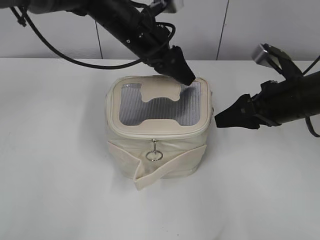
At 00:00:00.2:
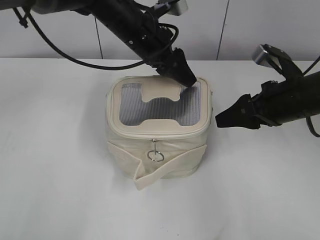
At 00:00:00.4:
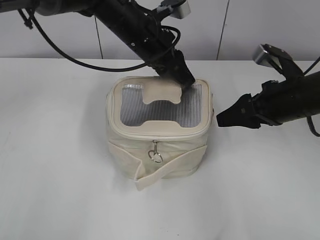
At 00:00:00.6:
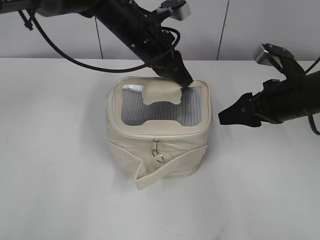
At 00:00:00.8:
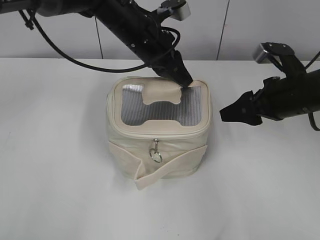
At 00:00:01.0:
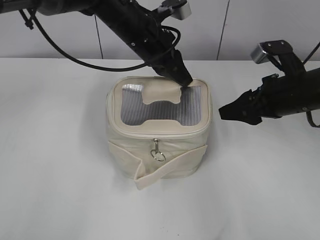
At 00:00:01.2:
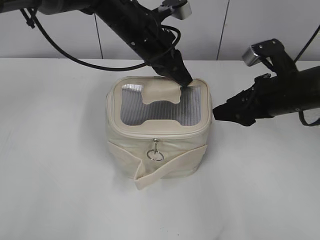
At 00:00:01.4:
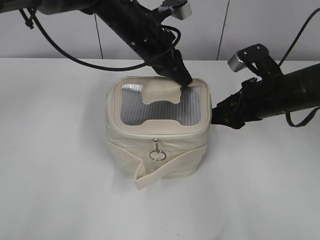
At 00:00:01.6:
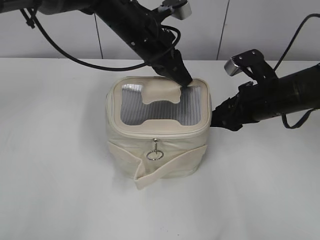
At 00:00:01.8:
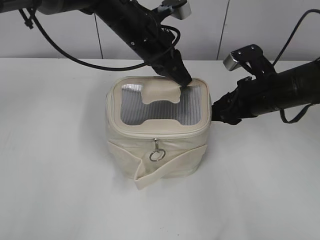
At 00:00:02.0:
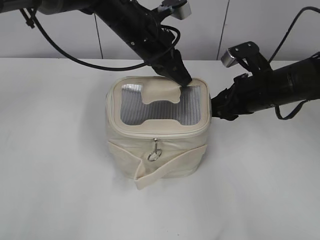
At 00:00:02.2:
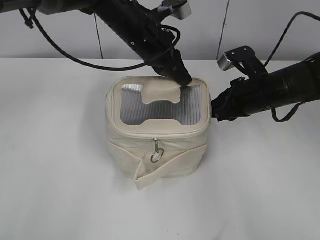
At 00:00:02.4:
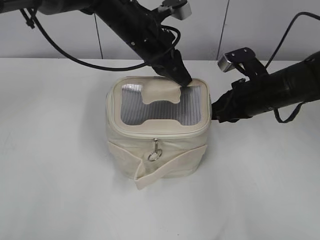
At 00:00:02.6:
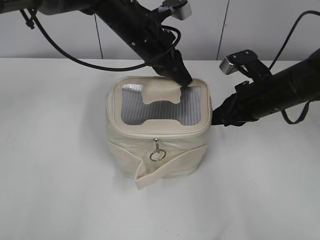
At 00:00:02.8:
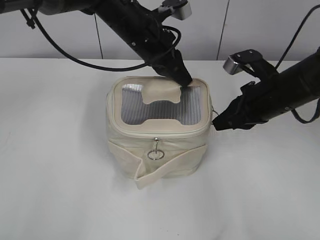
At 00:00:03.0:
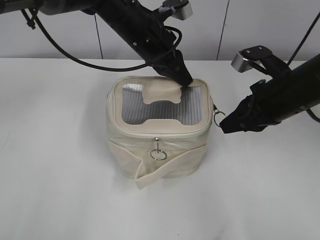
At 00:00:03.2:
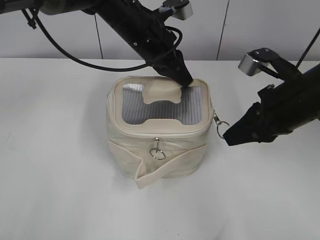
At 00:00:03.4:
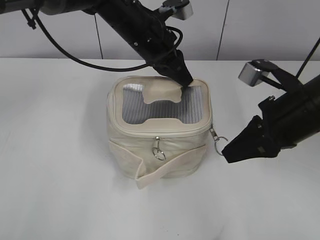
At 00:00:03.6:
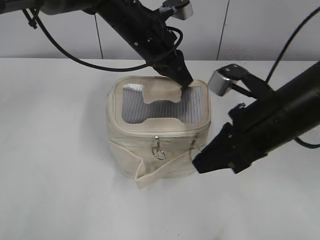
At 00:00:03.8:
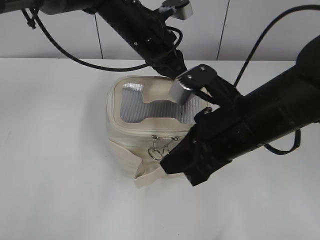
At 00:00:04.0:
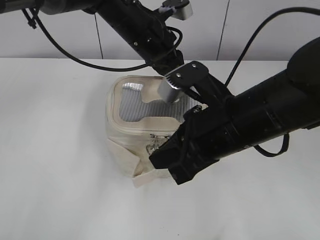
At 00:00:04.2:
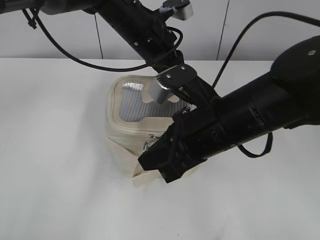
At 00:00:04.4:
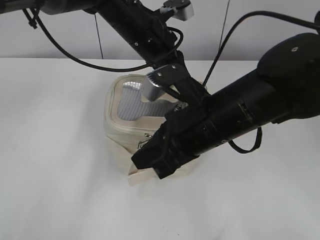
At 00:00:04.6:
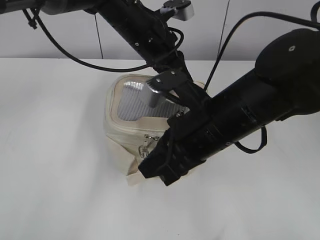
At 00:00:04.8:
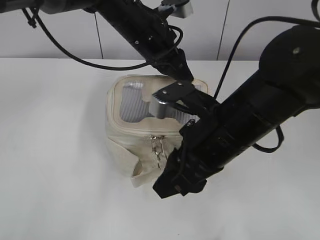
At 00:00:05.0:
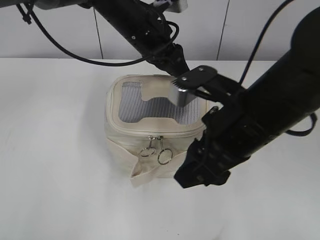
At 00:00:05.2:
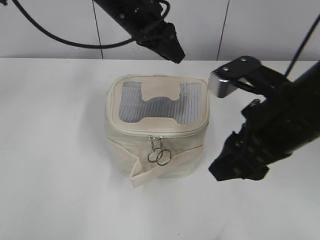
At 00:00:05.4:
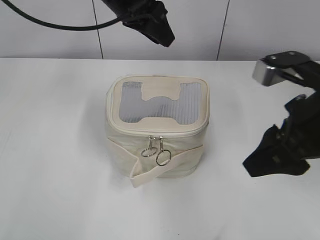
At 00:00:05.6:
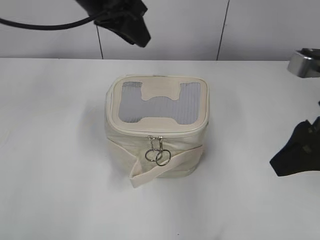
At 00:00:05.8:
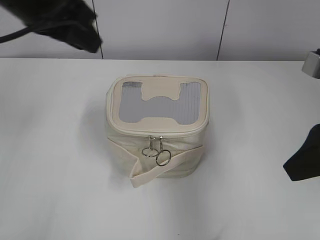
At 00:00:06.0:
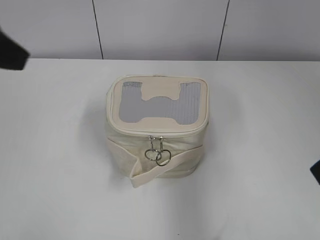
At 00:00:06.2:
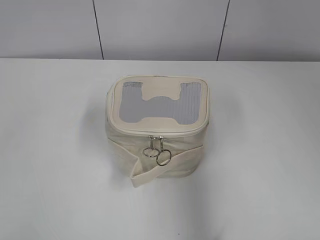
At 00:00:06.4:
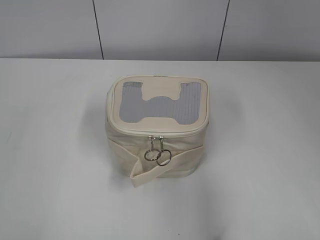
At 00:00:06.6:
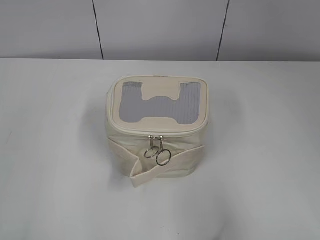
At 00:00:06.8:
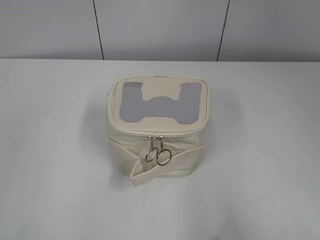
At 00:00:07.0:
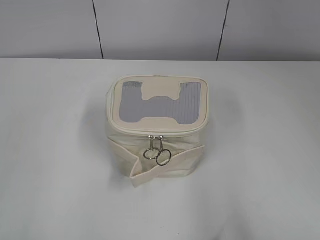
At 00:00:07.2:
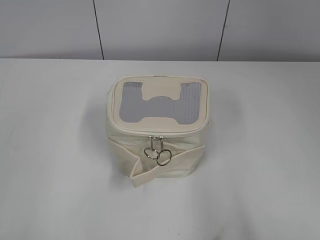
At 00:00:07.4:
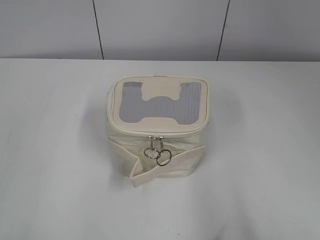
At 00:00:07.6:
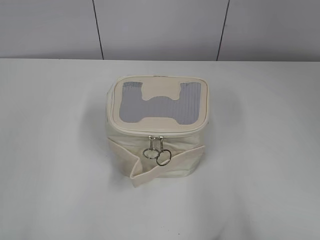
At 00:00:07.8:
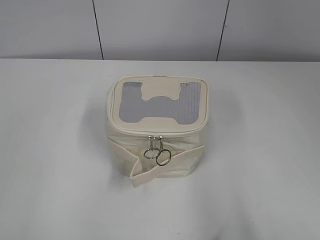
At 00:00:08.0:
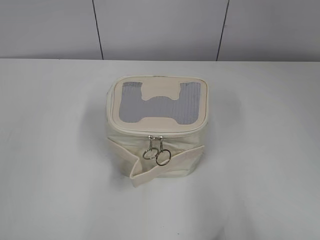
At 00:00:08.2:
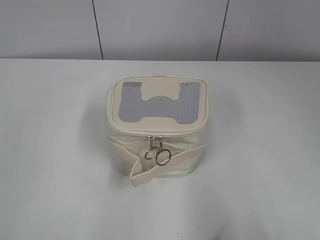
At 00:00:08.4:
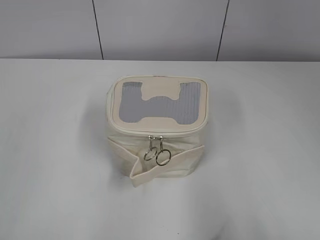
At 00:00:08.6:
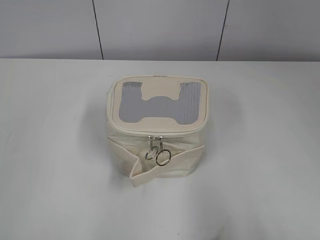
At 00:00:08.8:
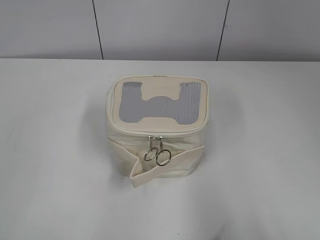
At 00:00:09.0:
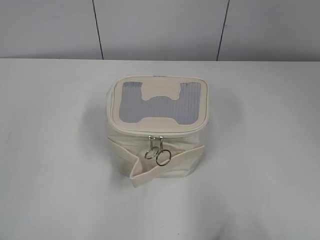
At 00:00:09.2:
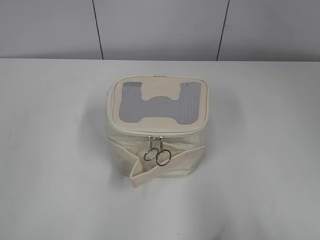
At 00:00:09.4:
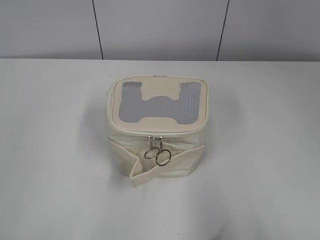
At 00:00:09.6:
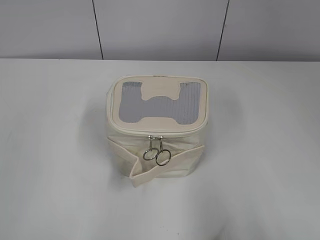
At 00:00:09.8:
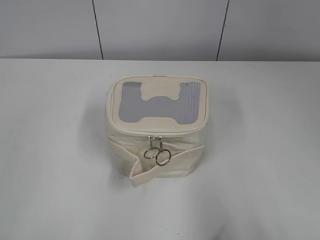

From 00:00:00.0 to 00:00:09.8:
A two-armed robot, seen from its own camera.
Step, from 00:00:00.0 to 00:00:04.4: Zip up the bag with your right hand.
Step, from 00:00:04.8 to 00:00:05.0: Hold the bag with your left hand.
From 00:00:00.0 to 00:00:01.4: The left gripper closes up.
From 00:00:01.4 to 00:00:02.8: The right gripper closes its fingers.
From 00:00:02.8 to 00:00:04.2: The right gripper moves backward and to the left, about 15 cm.
From 00:00:04.2 to 00:00:05.6: The left gripper heads upward and to the left, covering some 10 cm, and opens its fingers, while the right gripper is displaced to the right and upward by roughly 15 cm, and opens.
From 00:00:05.6 to 00:00:07.0: The left gripper shifts about 40 cm backward and to the left. The right gripper travels backward by about 20 cm.
From 00:00:08.4 to 00:00:09.8: Both grippers stay put.

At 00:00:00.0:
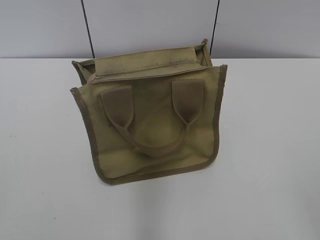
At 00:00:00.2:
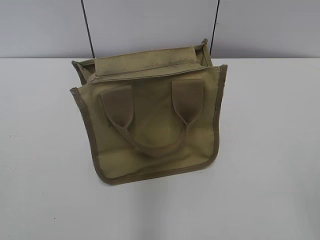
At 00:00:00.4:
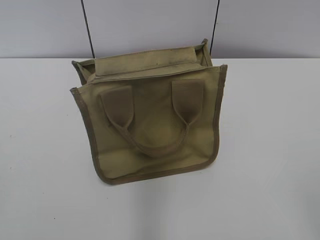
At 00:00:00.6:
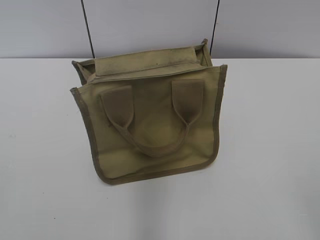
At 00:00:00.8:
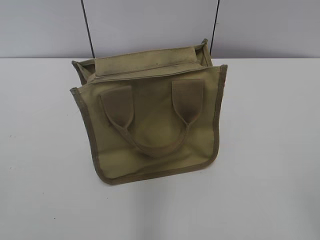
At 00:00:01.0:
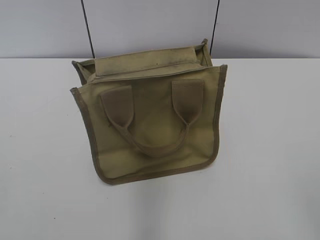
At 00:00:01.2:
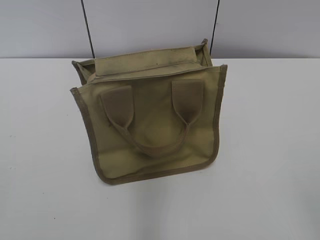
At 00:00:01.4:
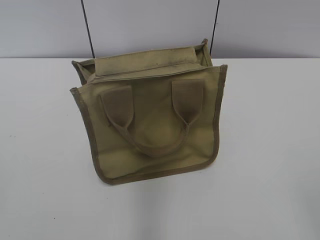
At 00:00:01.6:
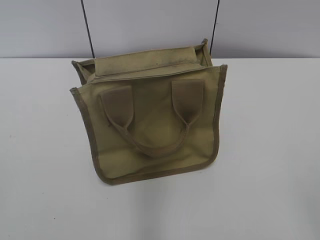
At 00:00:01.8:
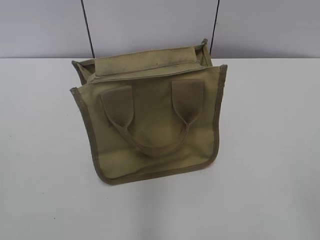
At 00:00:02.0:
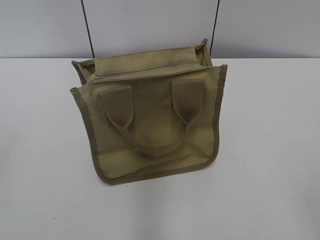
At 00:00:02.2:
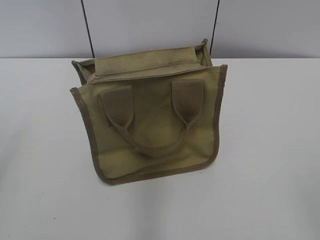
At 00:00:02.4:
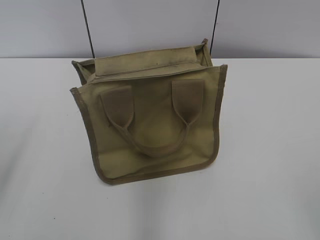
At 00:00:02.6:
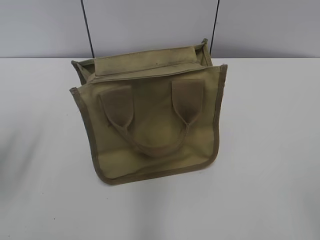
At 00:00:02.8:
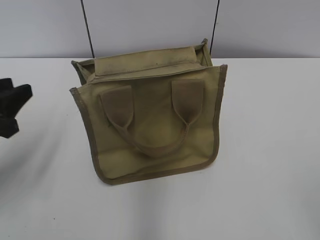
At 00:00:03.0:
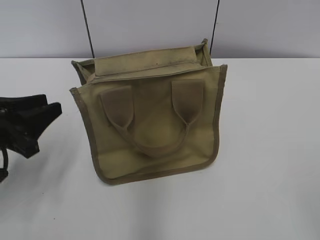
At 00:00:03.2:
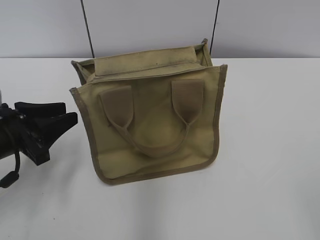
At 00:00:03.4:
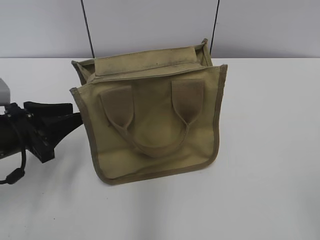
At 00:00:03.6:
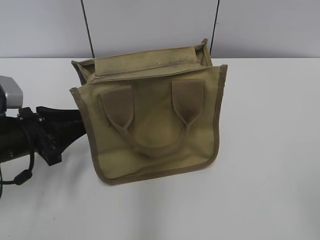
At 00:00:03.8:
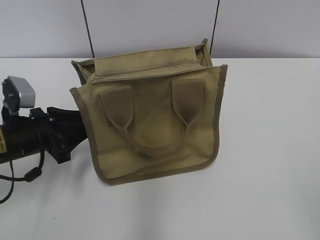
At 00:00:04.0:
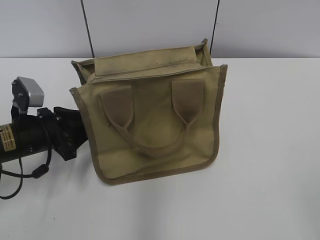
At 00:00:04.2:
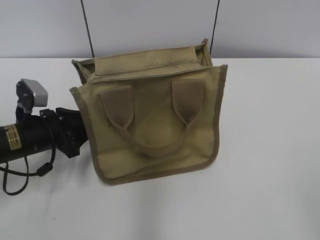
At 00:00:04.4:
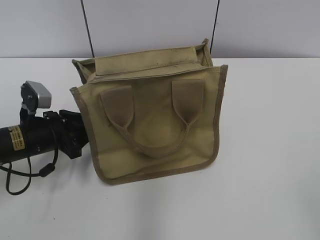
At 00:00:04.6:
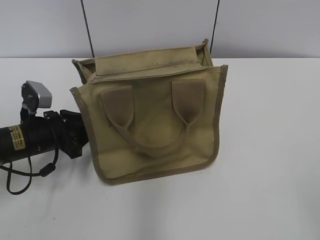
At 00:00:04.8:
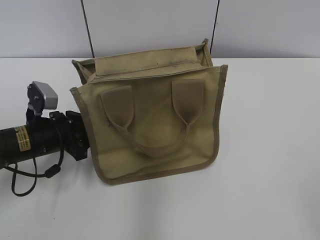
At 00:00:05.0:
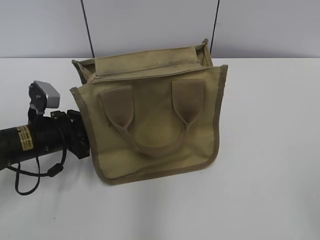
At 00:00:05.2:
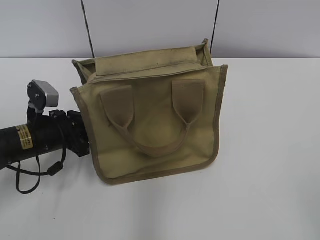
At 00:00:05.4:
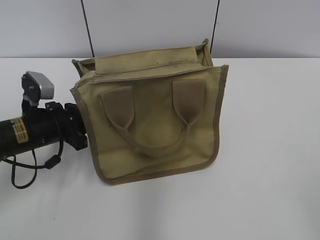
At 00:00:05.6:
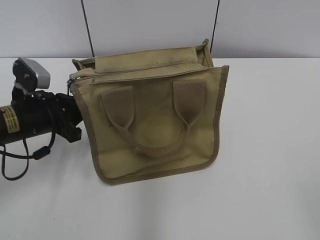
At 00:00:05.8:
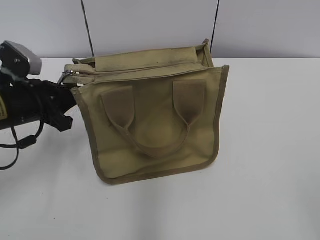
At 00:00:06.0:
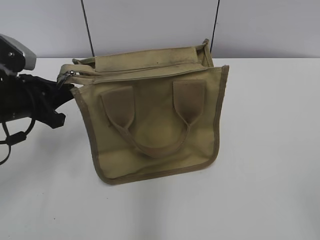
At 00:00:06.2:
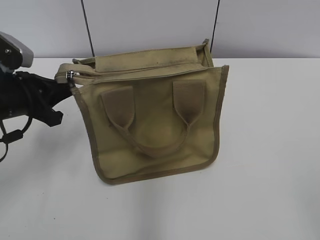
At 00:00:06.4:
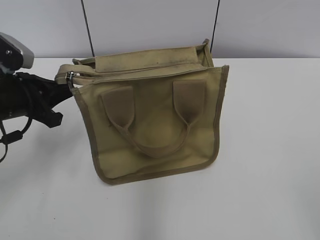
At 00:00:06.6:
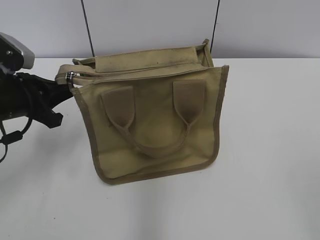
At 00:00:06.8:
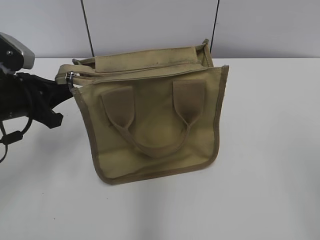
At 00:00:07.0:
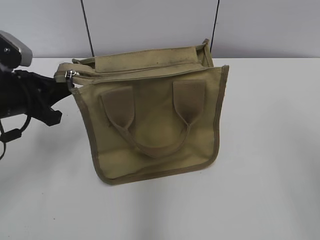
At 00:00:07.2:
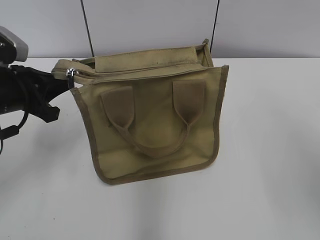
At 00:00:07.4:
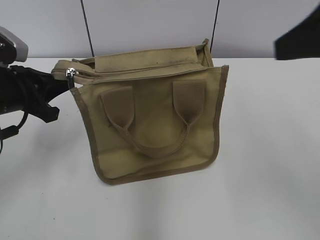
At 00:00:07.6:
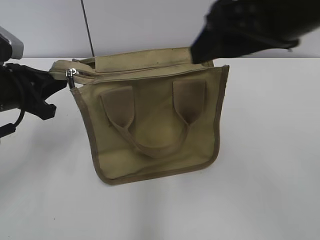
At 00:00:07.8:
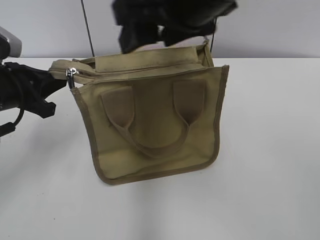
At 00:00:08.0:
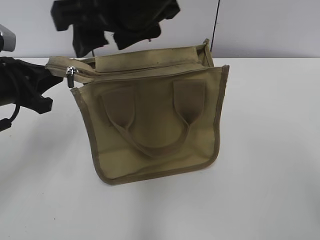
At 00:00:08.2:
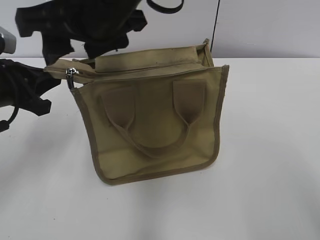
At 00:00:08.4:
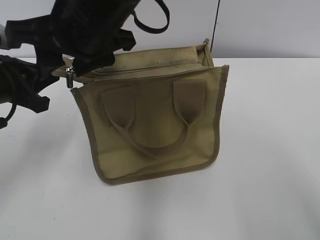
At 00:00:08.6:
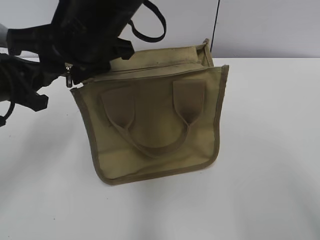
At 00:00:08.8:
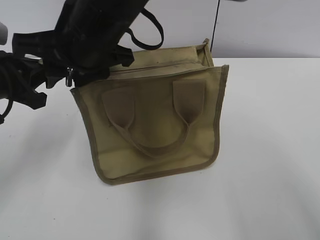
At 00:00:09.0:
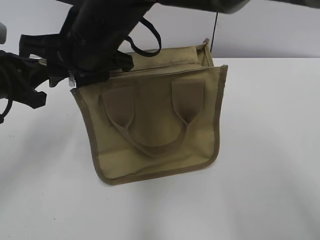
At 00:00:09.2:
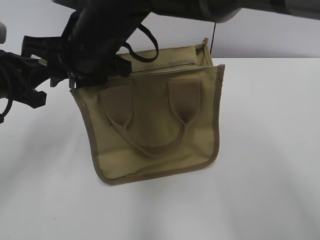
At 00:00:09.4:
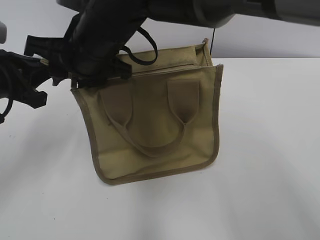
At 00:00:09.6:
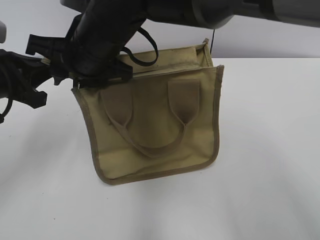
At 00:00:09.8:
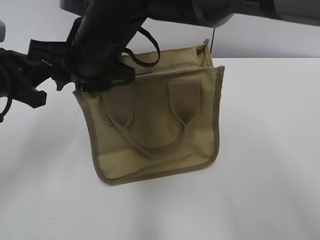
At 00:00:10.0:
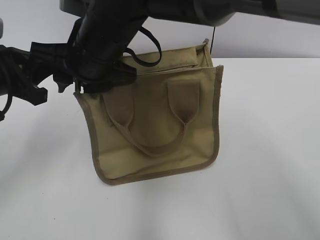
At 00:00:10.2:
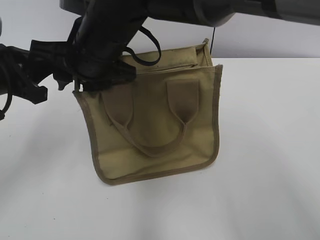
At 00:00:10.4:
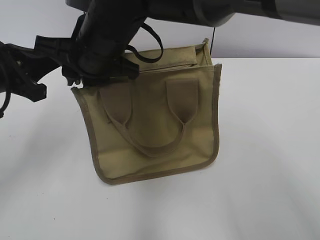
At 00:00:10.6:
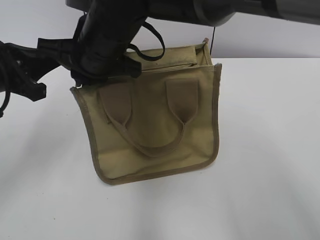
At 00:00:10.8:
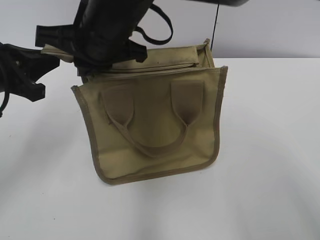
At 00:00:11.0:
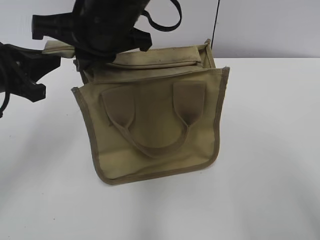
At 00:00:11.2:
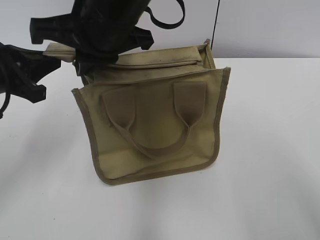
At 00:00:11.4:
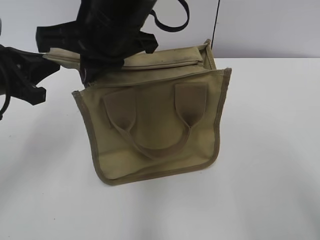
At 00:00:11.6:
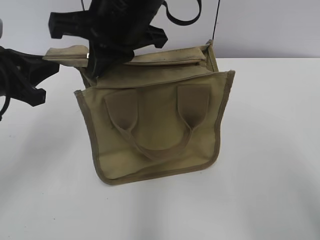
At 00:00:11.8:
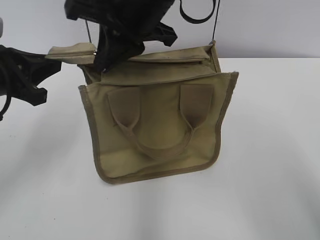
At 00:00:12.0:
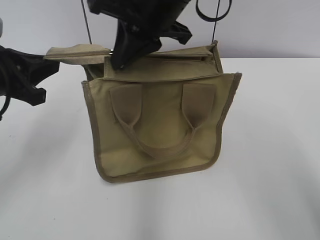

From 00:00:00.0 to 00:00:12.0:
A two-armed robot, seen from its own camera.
From 00:00:01.6 to 00:00:03.0: The left gripper goes roughly 25 cm forward and downward.
From 00:00:03.0 to 00:00:04.4: The left gripper moves downward and forward, roughly 10 cm.
From 00:00:04.4 to 00:00:06.0: The left gripper heads upward, covering some 10 cm, and closes.
From 00:00:06.0 to 00:00:07.6: The right gripper travels forward and to the left by roughly 30 cm.
From 00:00:07.6 to 00:00:09.0: The right gripper shifts approximately 25 cm to the left, downward and forward, and closes.
From 00:00:09.0 to 00:00:10.4: The grippers make only small movements.
From 00:00:10.4 to 00:00:12.0: The right gripper shifts approximately 10 cm to the right and upward.
